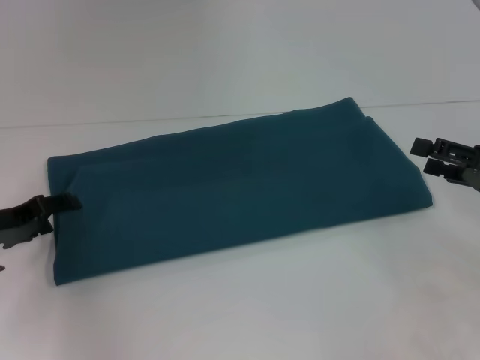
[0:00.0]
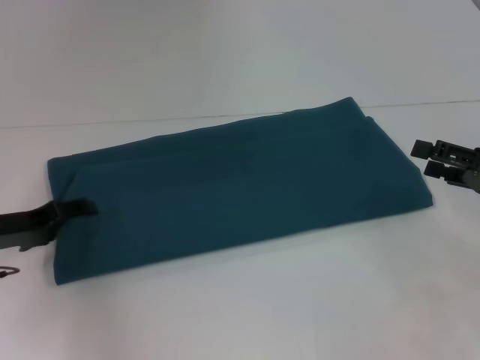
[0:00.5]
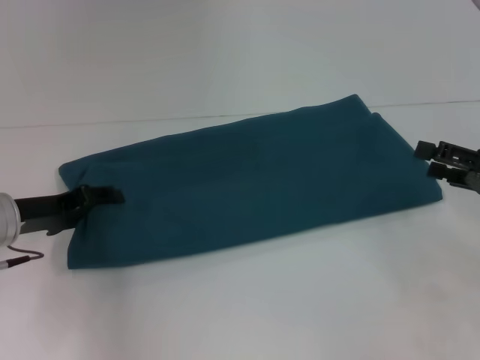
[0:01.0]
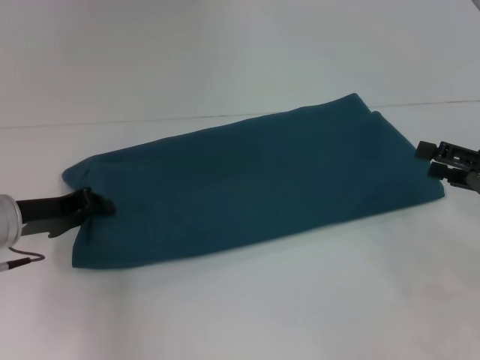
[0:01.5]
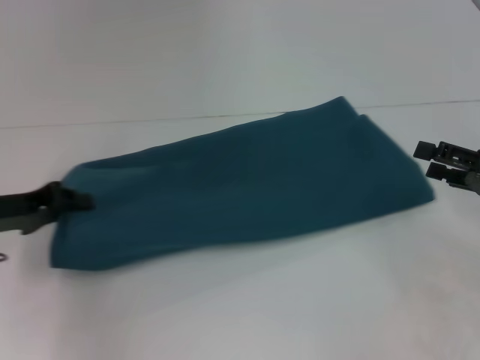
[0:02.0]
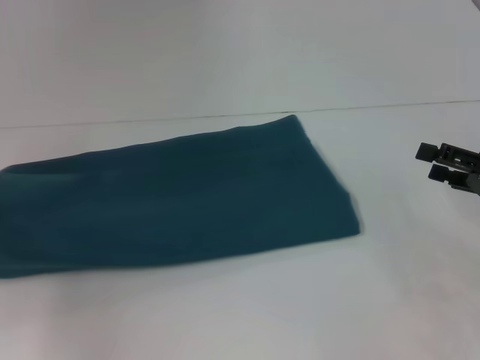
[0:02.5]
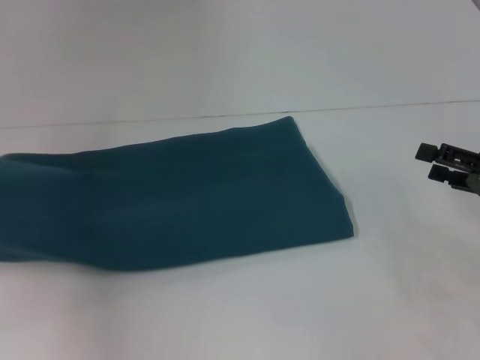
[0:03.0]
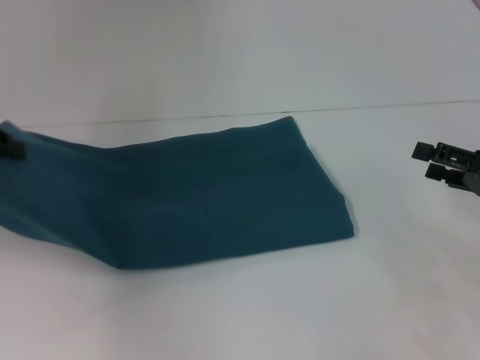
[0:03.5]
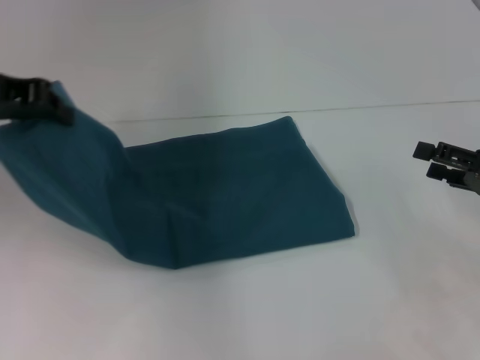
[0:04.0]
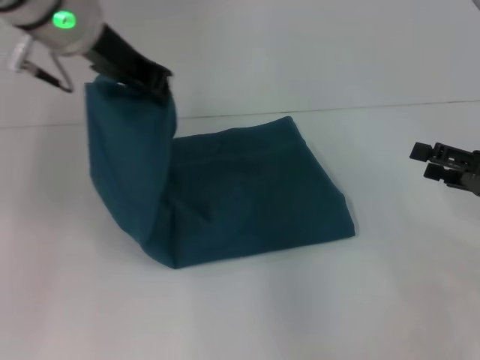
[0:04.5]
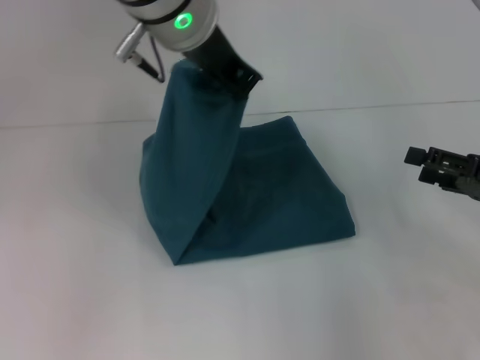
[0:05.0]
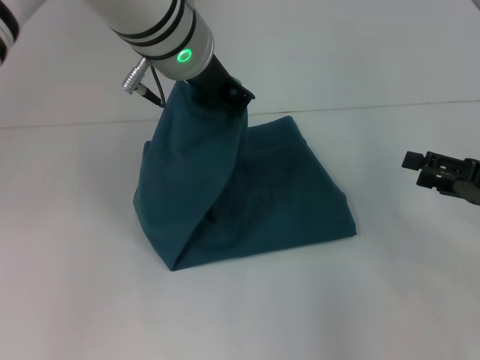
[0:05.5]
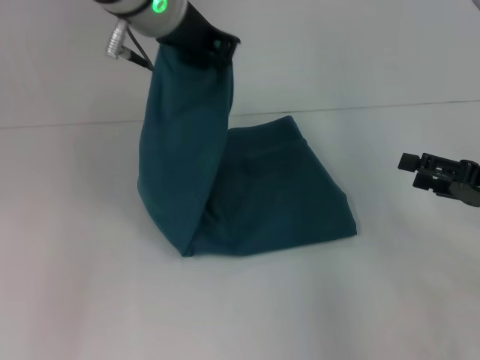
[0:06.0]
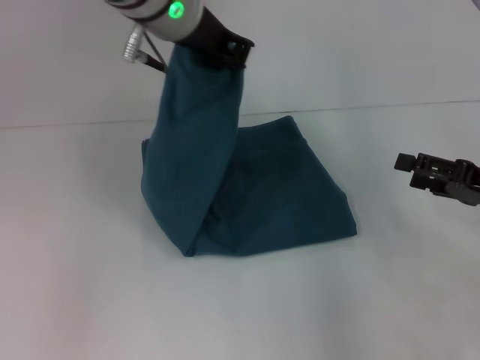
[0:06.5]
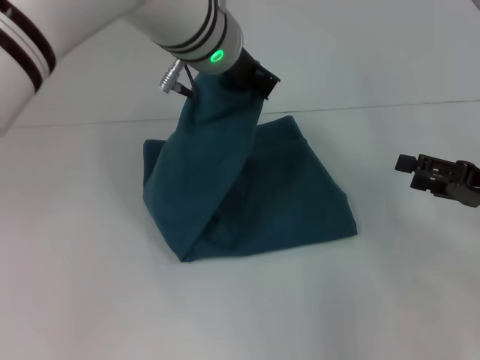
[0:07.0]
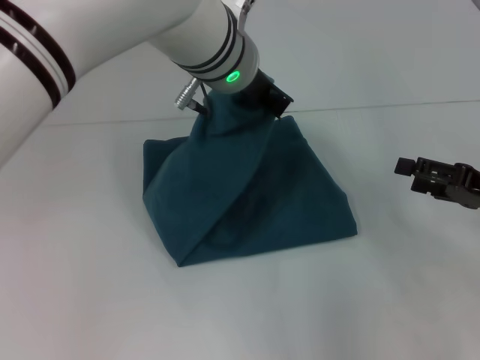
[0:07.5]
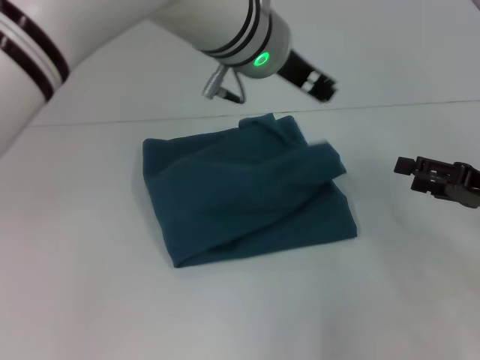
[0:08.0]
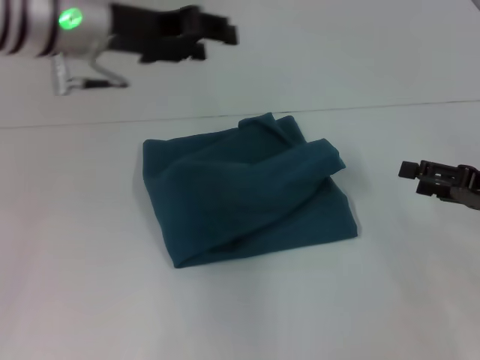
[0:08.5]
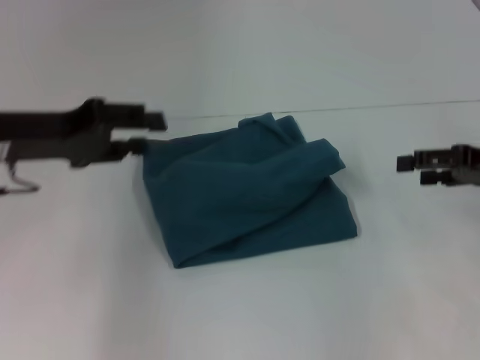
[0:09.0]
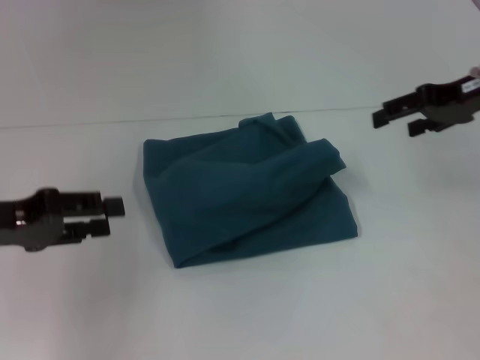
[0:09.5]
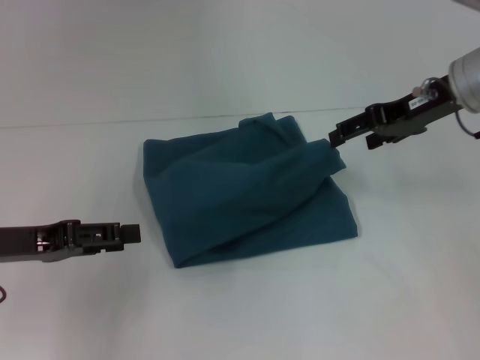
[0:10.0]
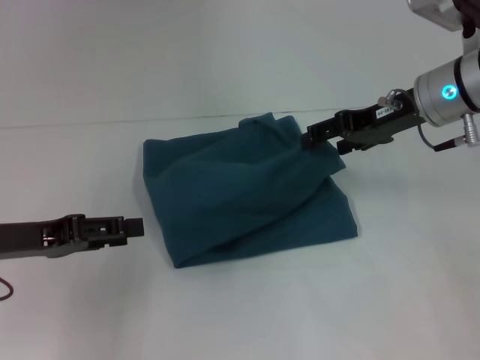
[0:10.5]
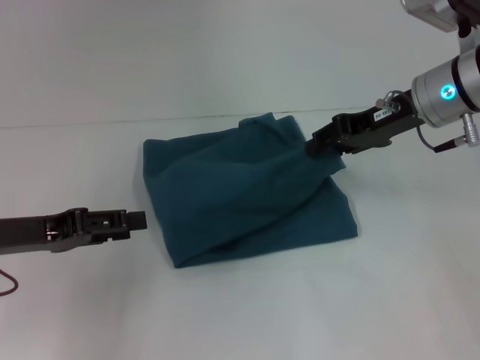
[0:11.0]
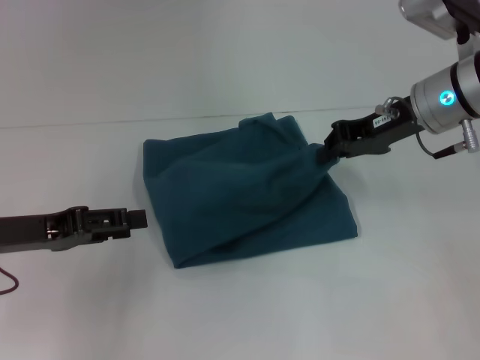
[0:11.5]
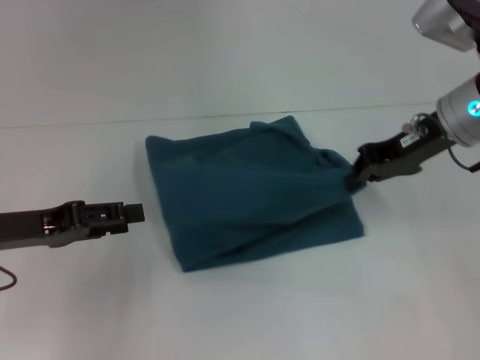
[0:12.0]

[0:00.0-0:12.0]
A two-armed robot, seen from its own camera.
Step, 0:00.0 to 0:08.0: Fold the clothes to the left.
0:00.0 to 0:02.0: The left gripper closes up.
0:02.0 to 0:04.0: The left gripper shifts some 15 cm upward.
0:04.0 to 0:06.0: The left gripper moves to the right, roughly 20 cm.
0:06.0 to 0:08.0: The left gripper shifts approximately 10 cm to the right.
0:08.0 to 0:10.0: The left gripper goes roughly 30 cm to the left and downward, and opens its fingers; the right gripper moves forward, upward and to the left, about 20 cm.
0:10.0 to 0:12.0: The right gripper closes its fingers.

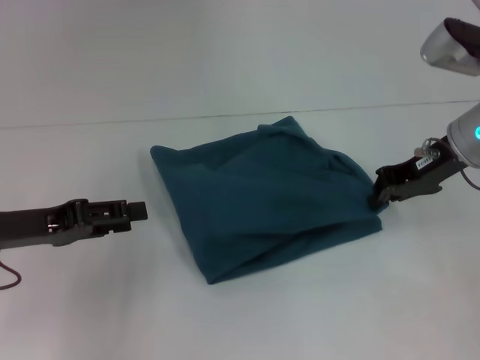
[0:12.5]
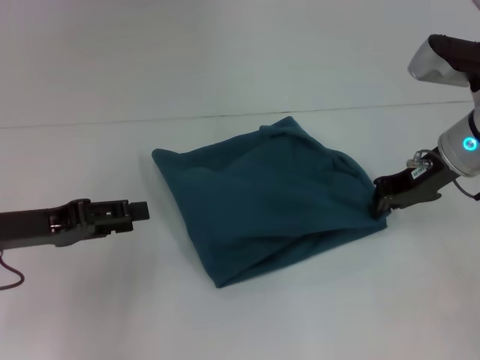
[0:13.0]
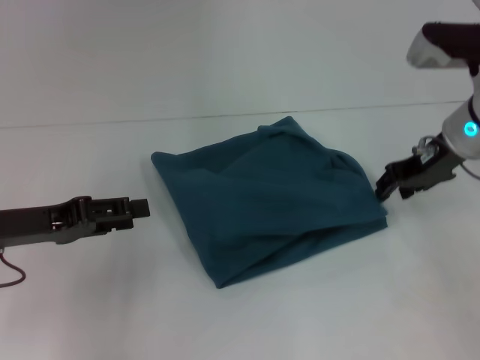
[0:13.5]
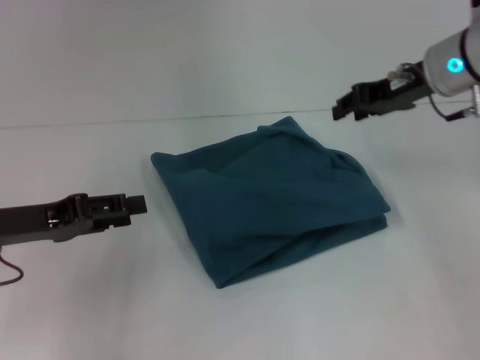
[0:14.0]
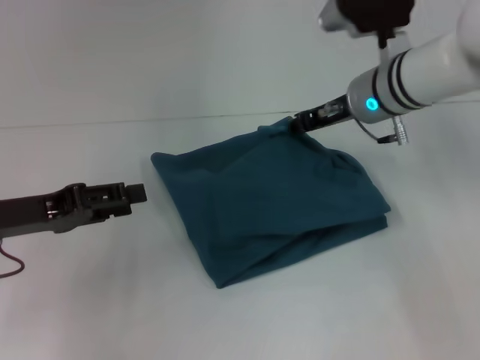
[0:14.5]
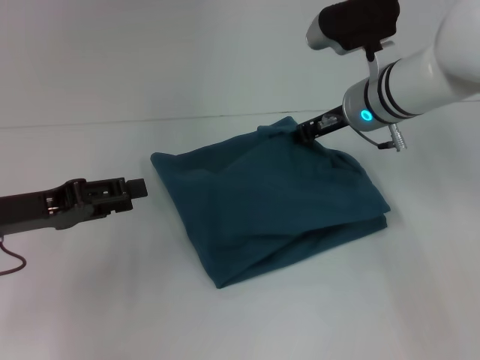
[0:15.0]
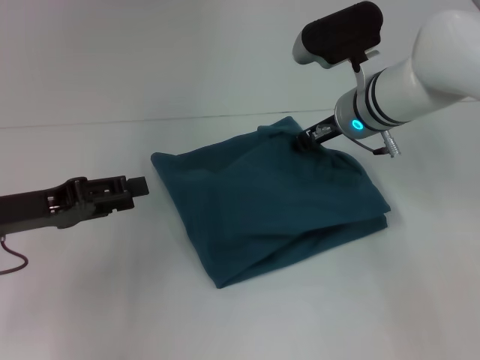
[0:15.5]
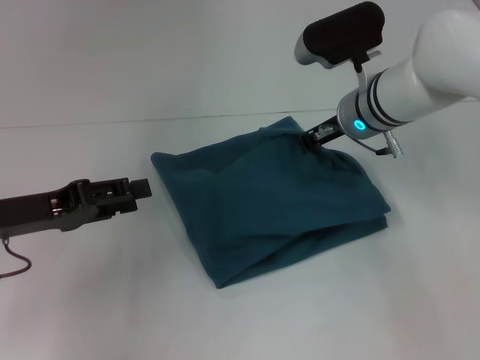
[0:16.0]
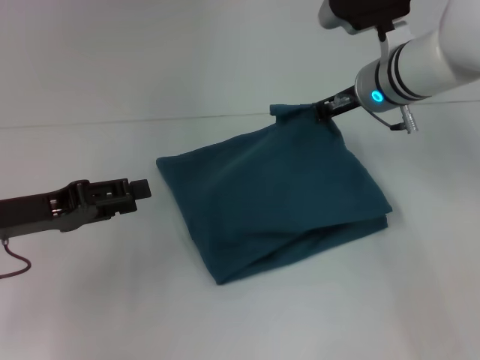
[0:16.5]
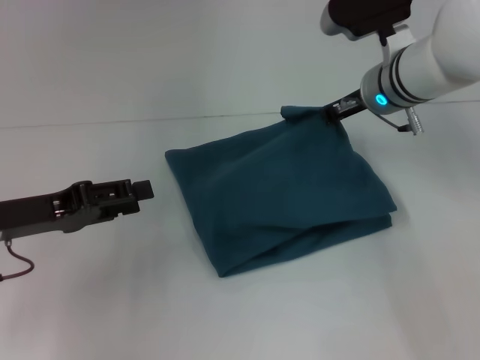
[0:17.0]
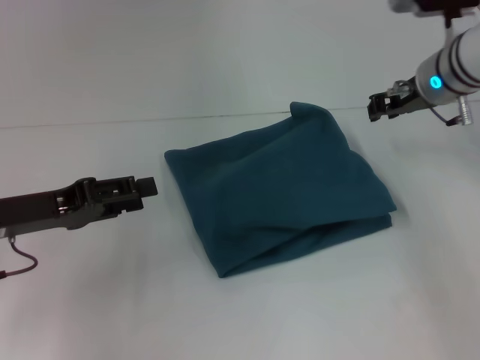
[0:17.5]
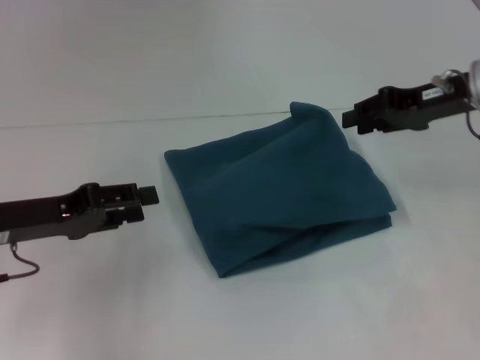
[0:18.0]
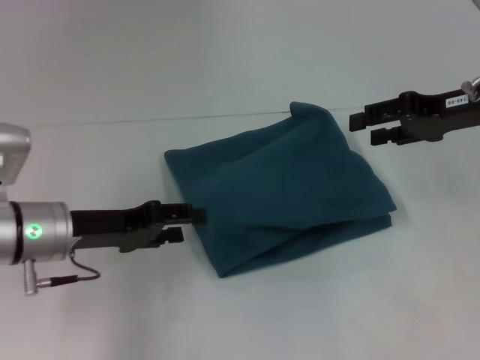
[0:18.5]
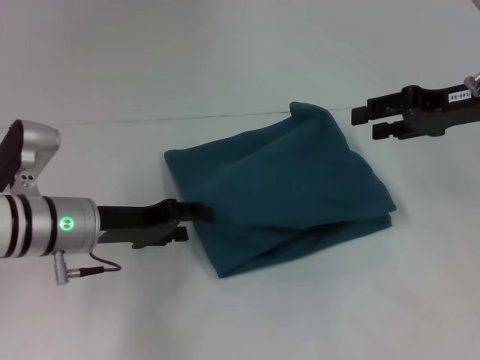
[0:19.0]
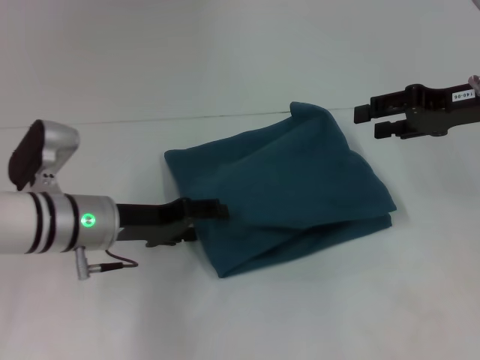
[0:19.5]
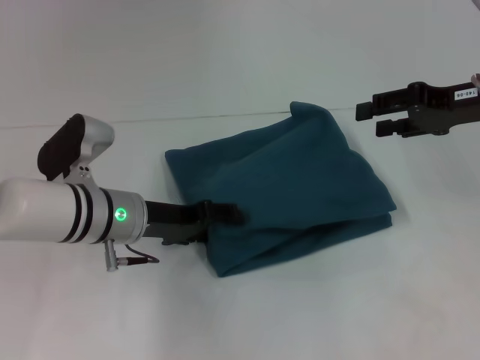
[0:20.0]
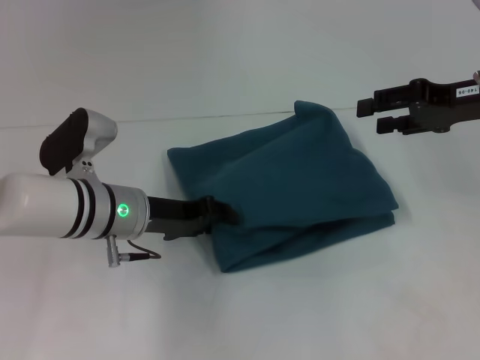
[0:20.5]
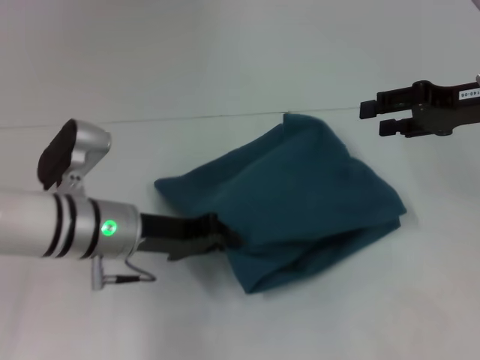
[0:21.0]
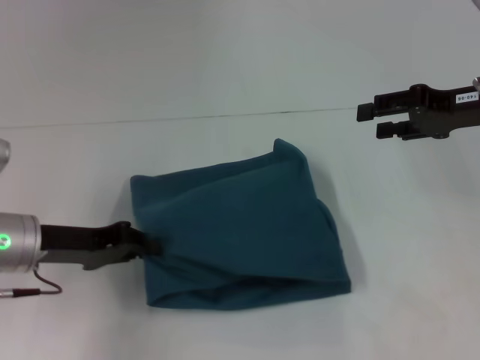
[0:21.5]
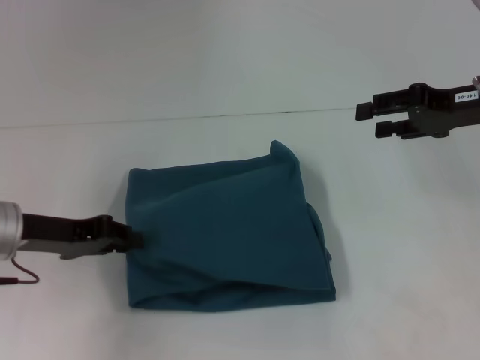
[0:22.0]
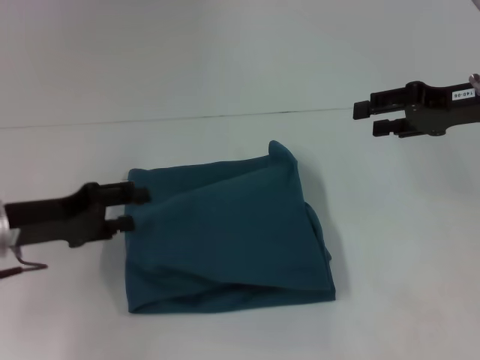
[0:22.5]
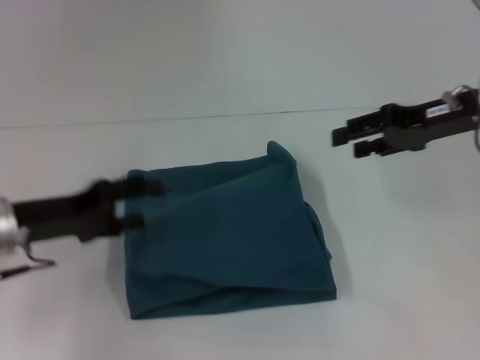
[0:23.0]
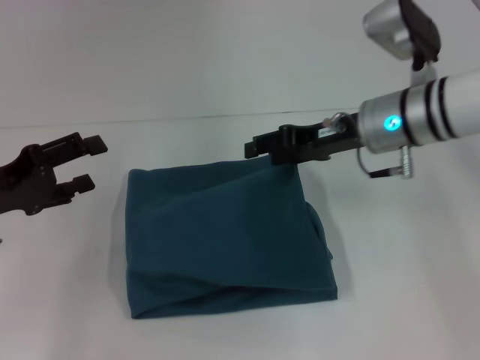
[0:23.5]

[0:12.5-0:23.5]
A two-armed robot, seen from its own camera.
0:12.5 to 0:14.5: The right gripper moves to the left, roughly 10 cm, and opens up.
0:14.5 to 0:16.0: The right gripper closes its fingers.
0:16.0 to 0:18.0: The right gripper moves to the right, some 15 cm.
0:18.0 to 0:20.0: The right gripper opens up. Meanwhile the left gripper moves to the right and forward, about 15 cm.
0:20.0 to 0:21.5: The left gripper is displaced to the left by some 10 cm, and closes up.
0:21.5 to 0:23.5: The left gripper moves to the left, some 5 cm, and opens, while the right gripper goes approximately 15 cm to the left.

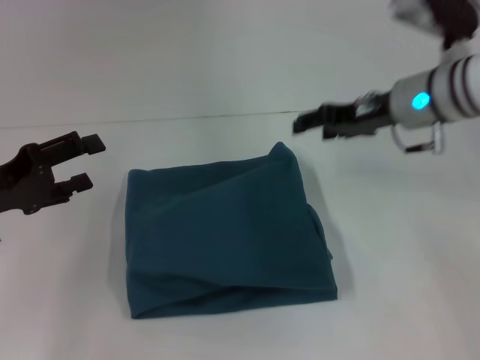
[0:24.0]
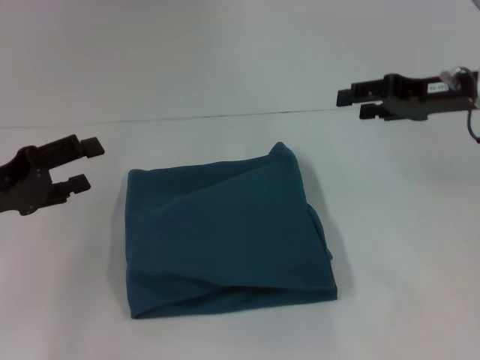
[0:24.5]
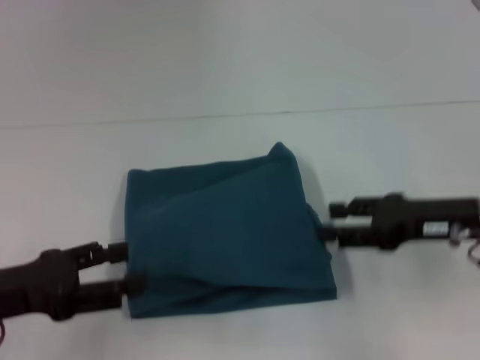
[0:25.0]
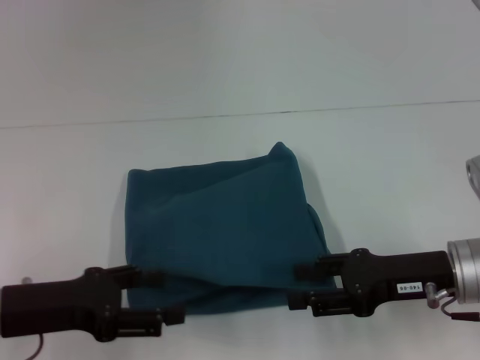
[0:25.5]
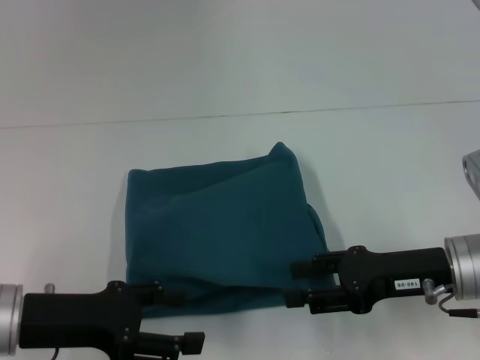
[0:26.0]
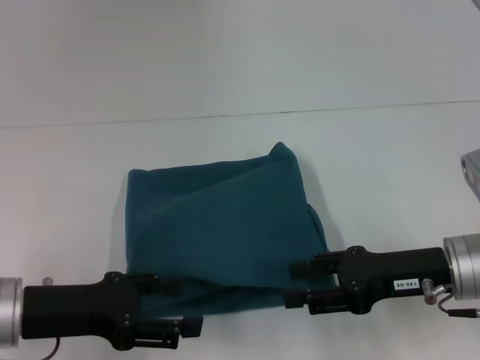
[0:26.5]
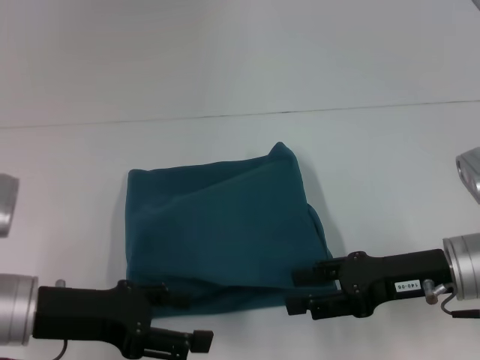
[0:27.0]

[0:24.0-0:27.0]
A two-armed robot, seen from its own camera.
0:24.0 to 0:25.5: The right gripper travels backward and downward by about 15 cm. Meanwhile the left gripper is displaced backward by some 5 cm.
0:25.5 to 0:27.0: The grippers move only a little.
